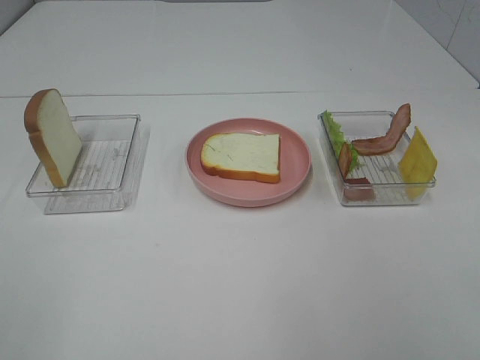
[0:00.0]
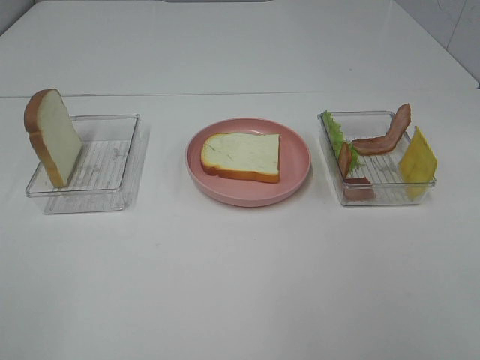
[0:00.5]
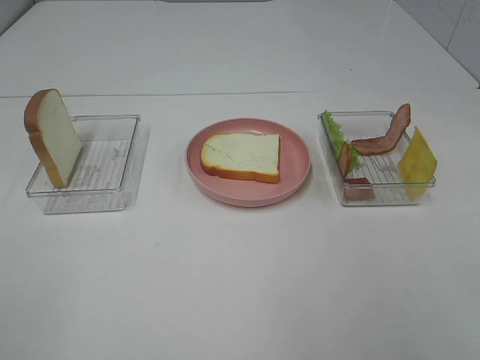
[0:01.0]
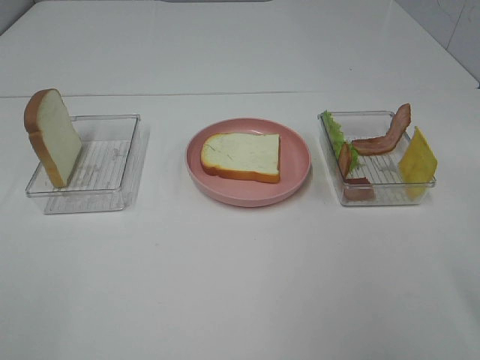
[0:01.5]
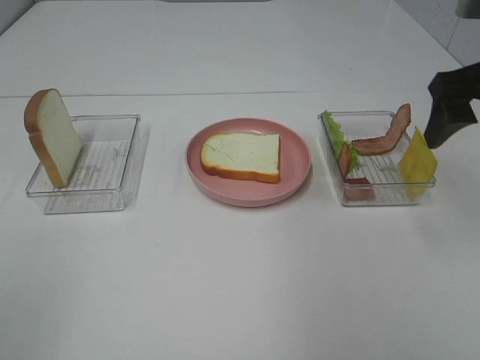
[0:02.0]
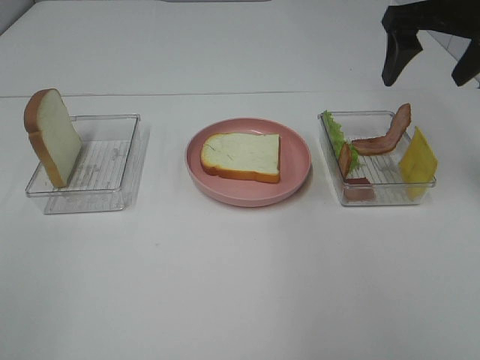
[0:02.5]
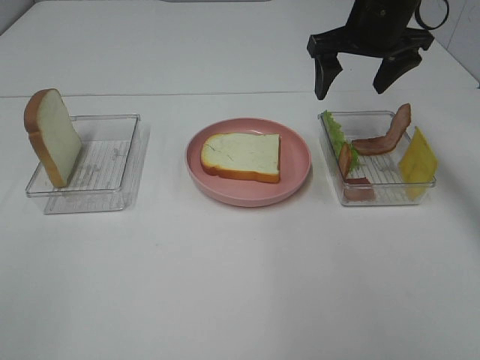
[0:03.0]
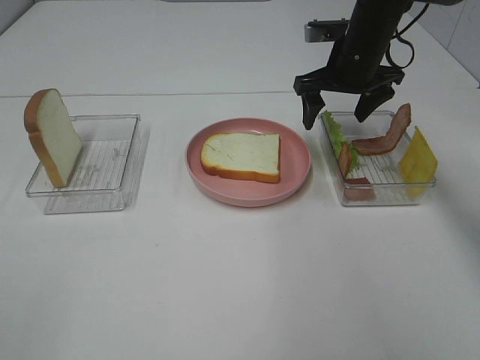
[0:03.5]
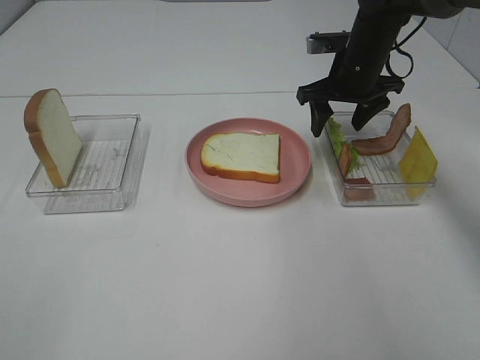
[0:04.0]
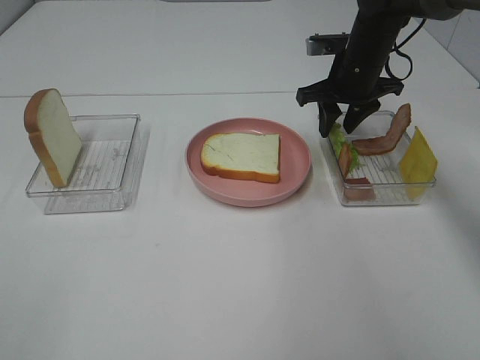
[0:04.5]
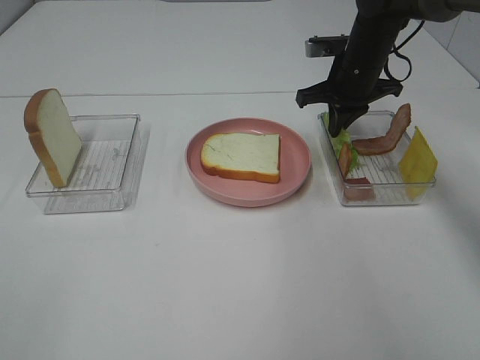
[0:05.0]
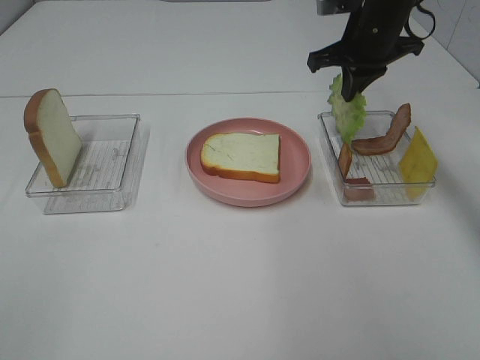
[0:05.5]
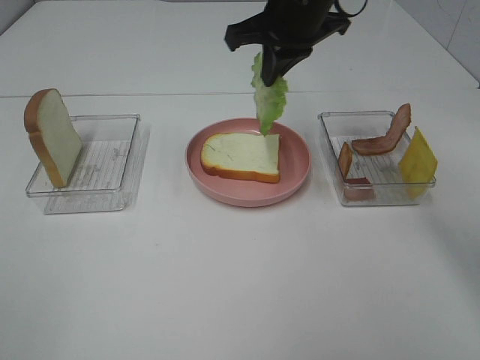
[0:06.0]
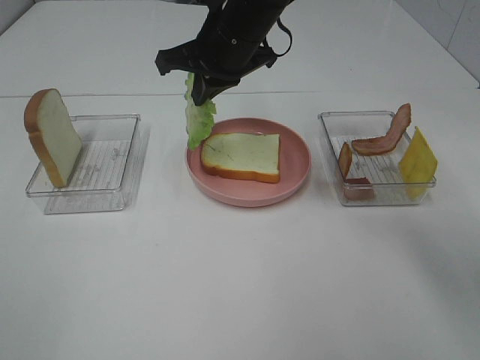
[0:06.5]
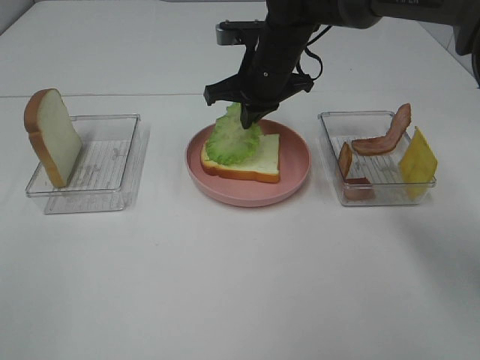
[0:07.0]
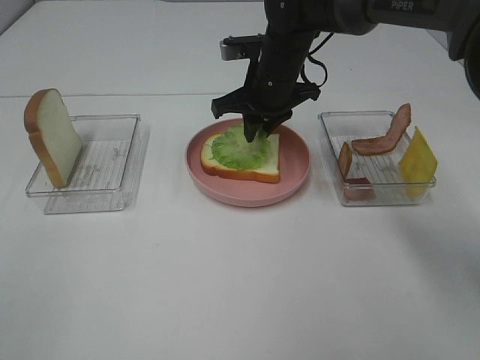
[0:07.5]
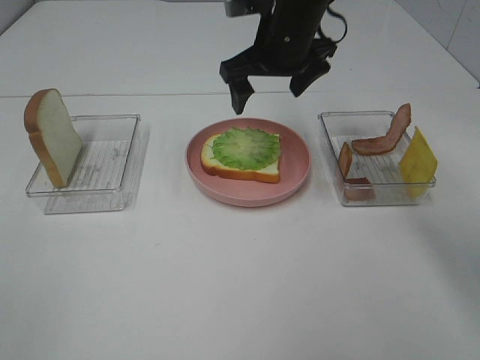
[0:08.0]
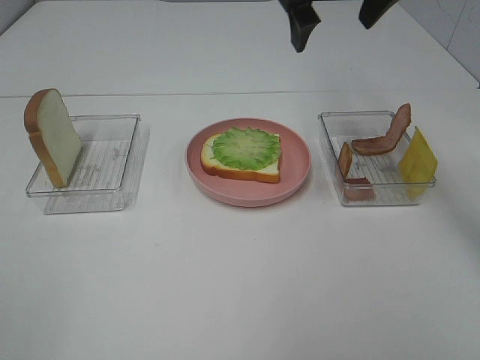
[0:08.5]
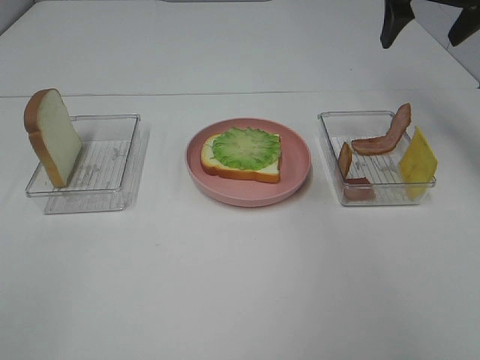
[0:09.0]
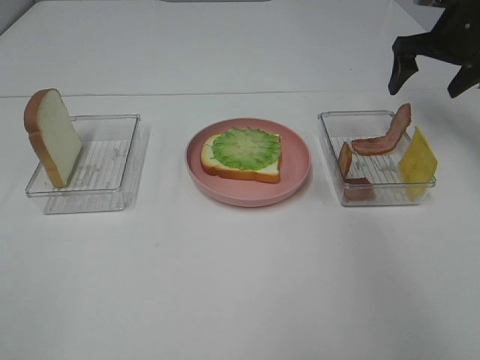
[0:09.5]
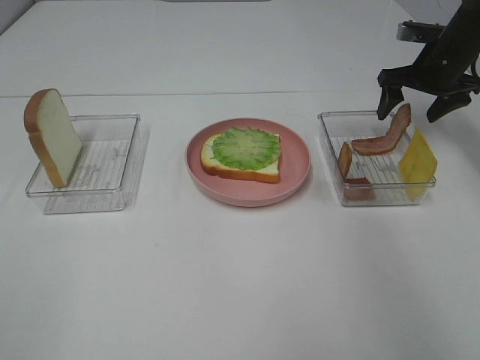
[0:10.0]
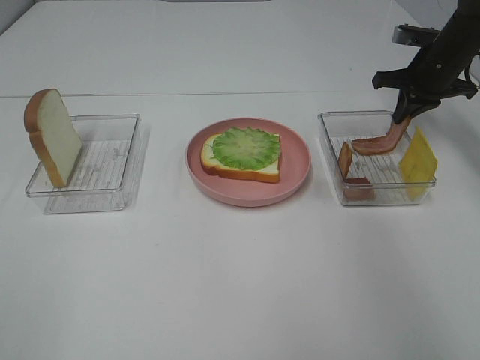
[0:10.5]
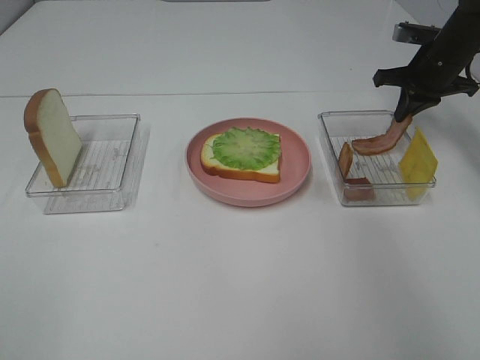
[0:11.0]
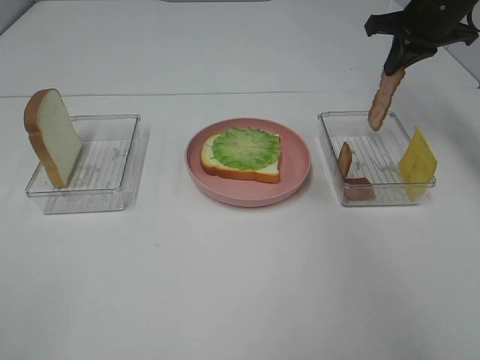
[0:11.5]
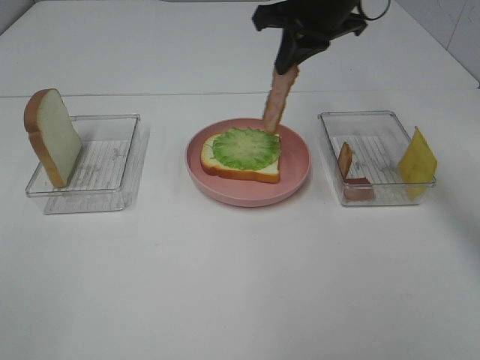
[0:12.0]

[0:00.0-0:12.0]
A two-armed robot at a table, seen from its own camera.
Task of the whole recording: Make sandwiches.
Step, 0:00.0 to 0:05.0: Right hand:grab the lettuce slice.
Step, 0:08.5 to 0:11.0: Right hand:grab the bacon.
0:00.0 to 0:02.0: The right gripper shifts roughly 30 cm forward.
0:02.0 to 0:04.0: The right gripper moves forward, downward and to the left, roughly 25 cm.
0:04.0 to 0:06.0: The right gripper is displaced to the left, upward and backward by about 15 cm, and closes up.
0:06.0 to 0:08.0: The right gripper travels downward and back again, some 10 cm each way, and opens its fingers.
0:08.0 to 0:10.0: The right gripper goes about 25 cm to the right.
0:10.0 to 0:12.0: The right gripper is displaced to the left and upward by some 25 cm, and closes up.

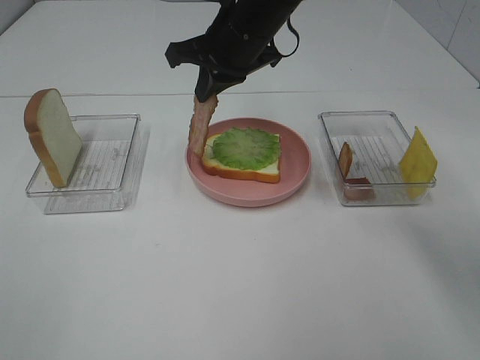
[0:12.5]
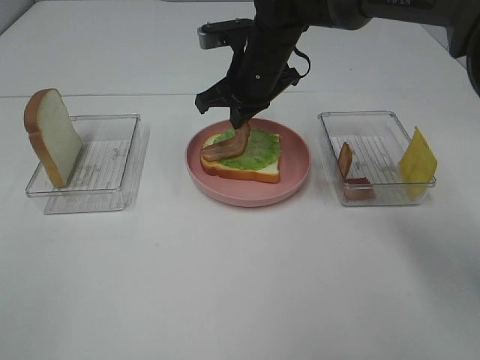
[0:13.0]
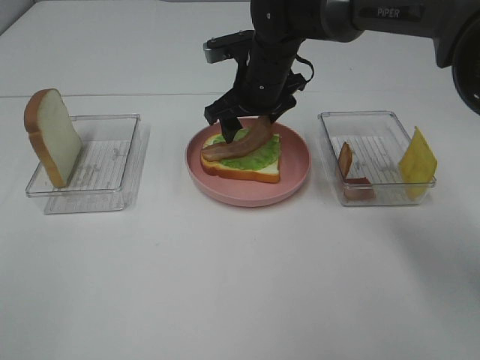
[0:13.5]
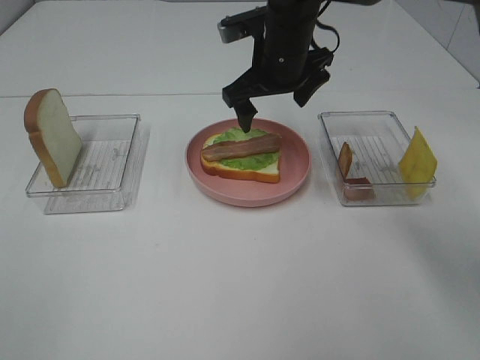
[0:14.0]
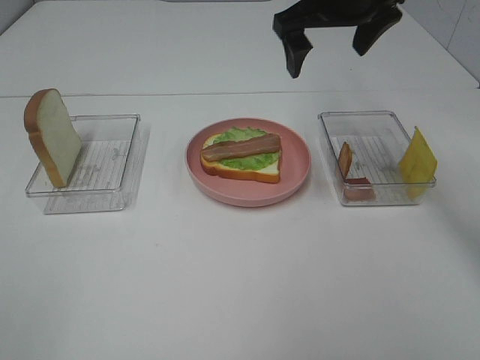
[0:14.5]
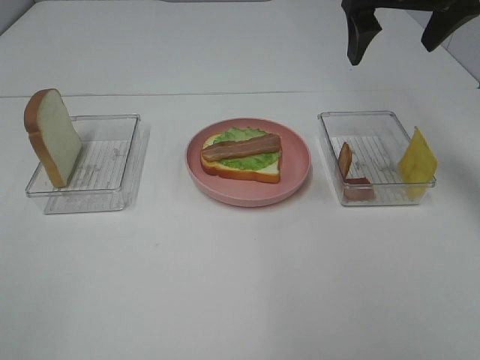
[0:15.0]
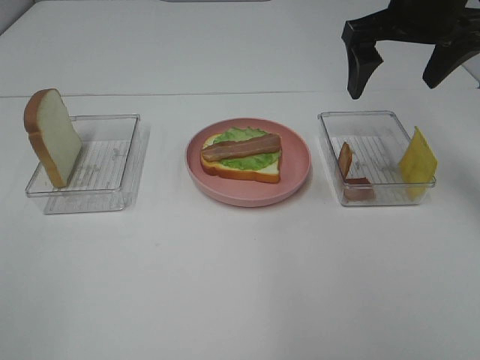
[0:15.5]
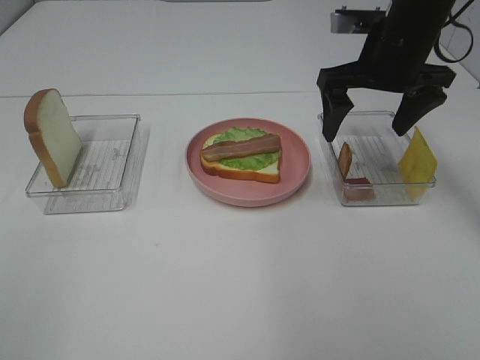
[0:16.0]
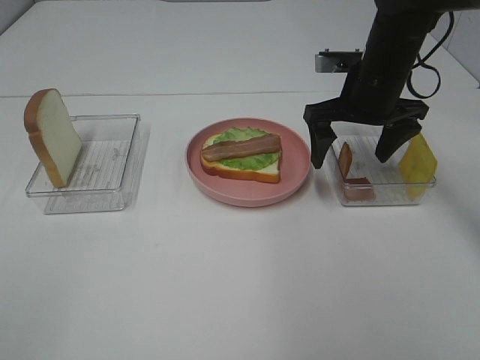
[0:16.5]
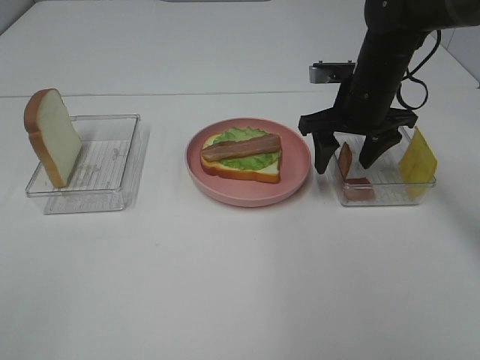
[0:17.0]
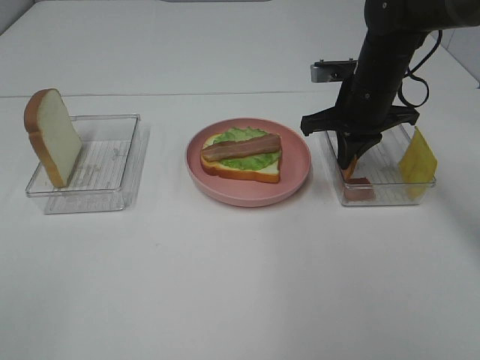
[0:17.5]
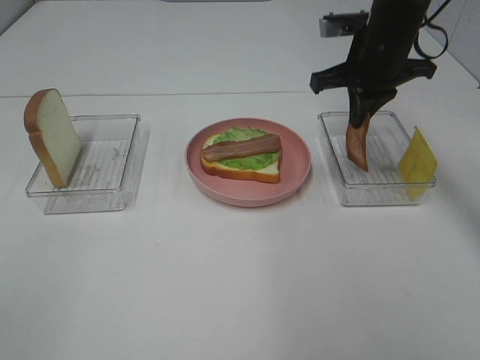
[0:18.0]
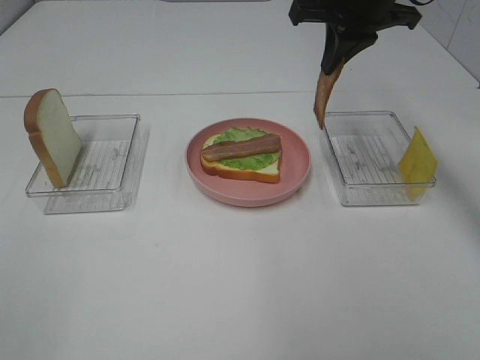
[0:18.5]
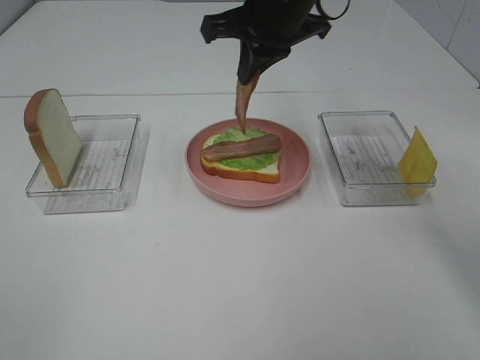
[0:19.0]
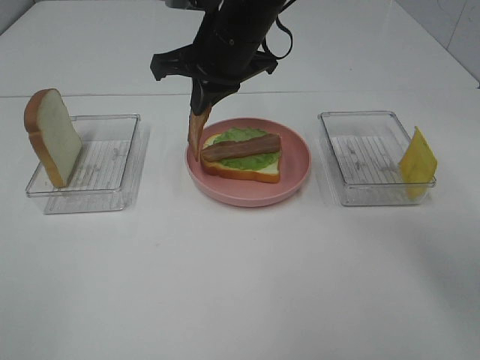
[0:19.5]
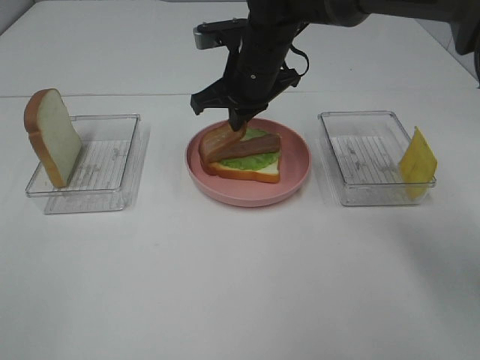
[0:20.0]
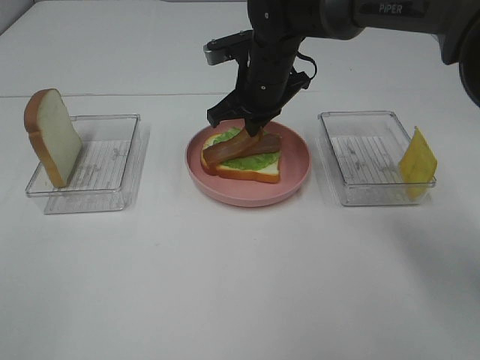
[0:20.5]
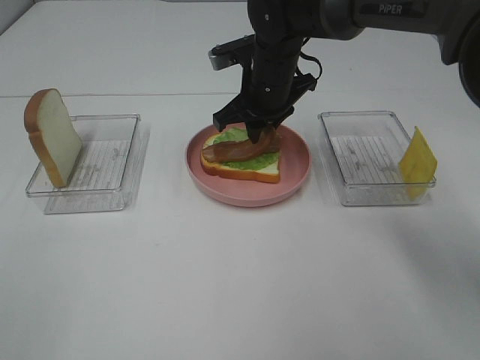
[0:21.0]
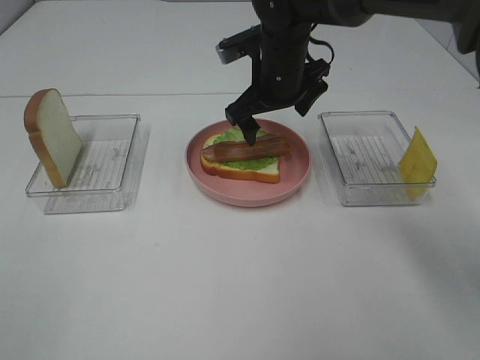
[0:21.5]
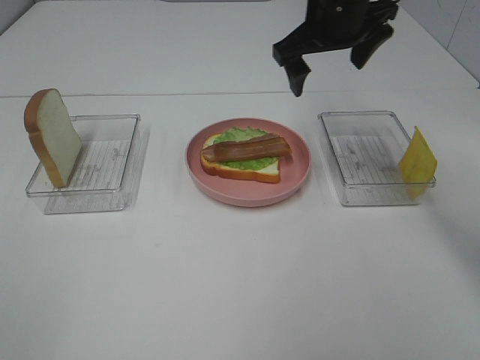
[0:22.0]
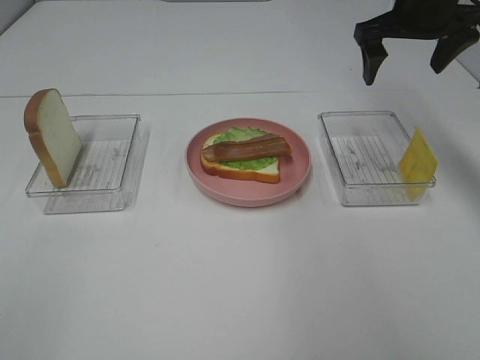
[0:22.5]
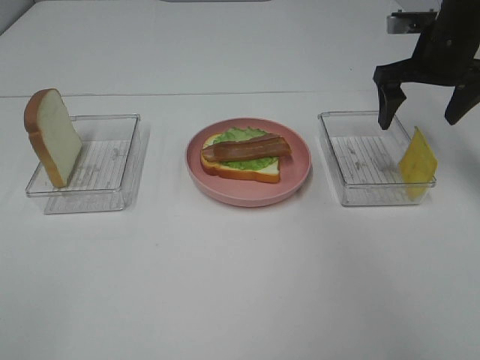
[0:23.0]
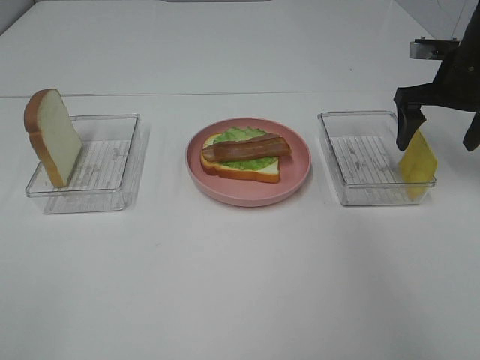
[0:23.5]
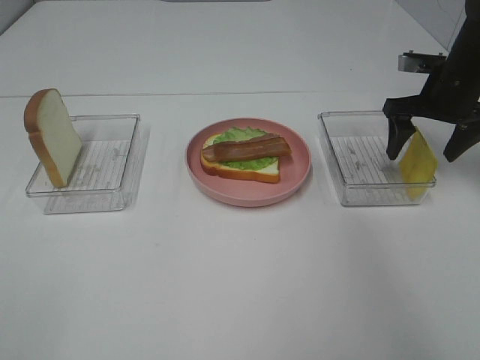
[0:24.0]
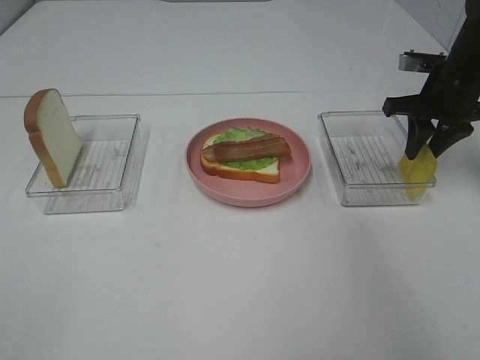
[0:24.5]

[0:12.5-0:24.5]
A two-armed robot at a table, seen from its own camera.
Task of the whole recording: Make sandwiches.
Step, 0:12.5 to 0:14.0: Right hand:place bacon on lettuce slice.
Step, 0:14.5 to 0:17.5: Right hand:grab the bacon.
Step, 0:18.0 to 0:21.0: Right hand:place bacon on bacon.
0:12.5 to 0:14.5: The right gripper goes some 15 cm to the right and upward, and opens up.
0:14.5 to 0:16.5: The right gripper goes approximately 15 cm downward and to the right.
0:16.5 to 0:18.5: The right gripper moves upward, approximately 10 cm, and closes.
0:18.5 to 0:20.5: The right gripper goes about 15 cm downward and to the left.
0:20.5 to 0:22.5: The right gripper is displaced to the right and upward by some 20 cm, and opens its fingers.
0:22.5 to 0:24.5: The right gripper goes about 10 cm downward and to the right, and closes its fingers.

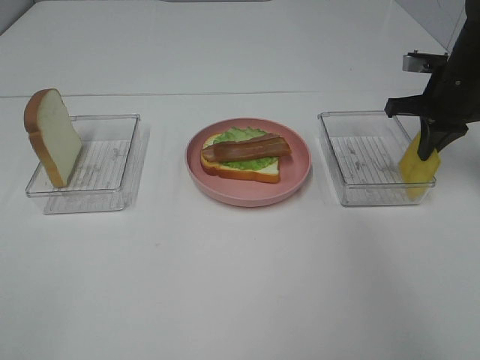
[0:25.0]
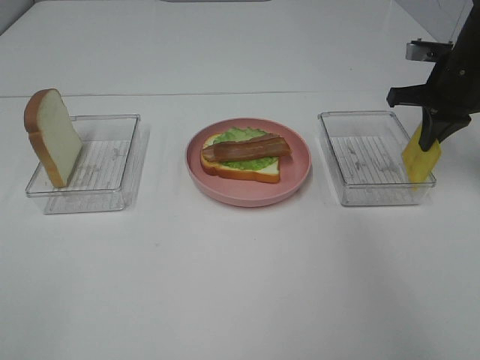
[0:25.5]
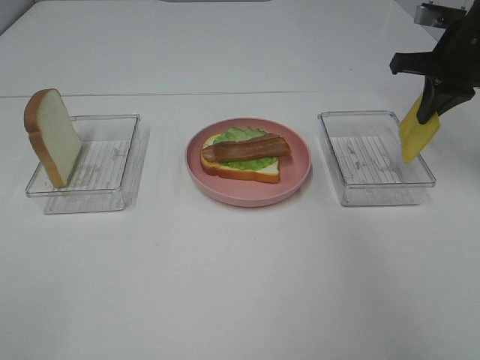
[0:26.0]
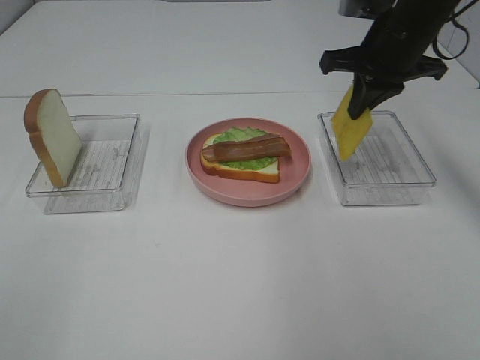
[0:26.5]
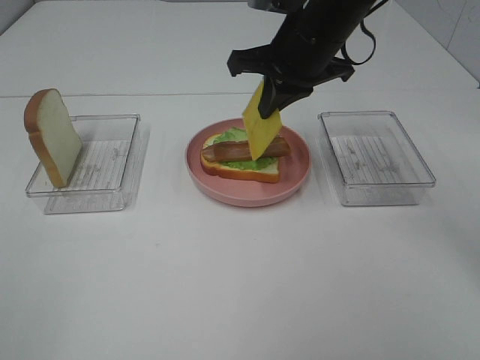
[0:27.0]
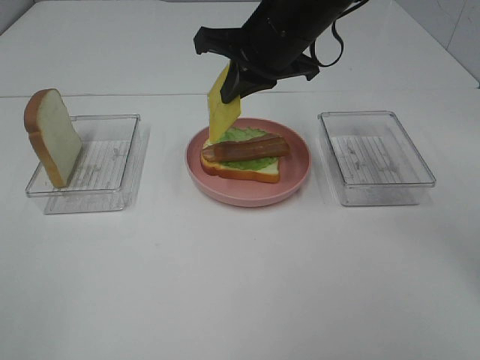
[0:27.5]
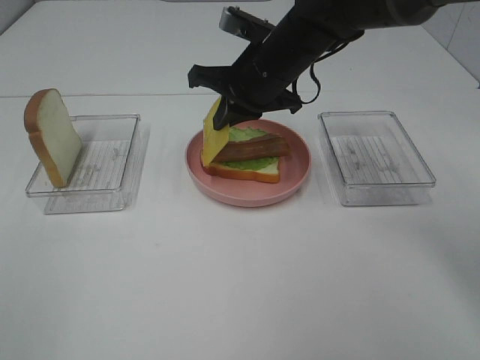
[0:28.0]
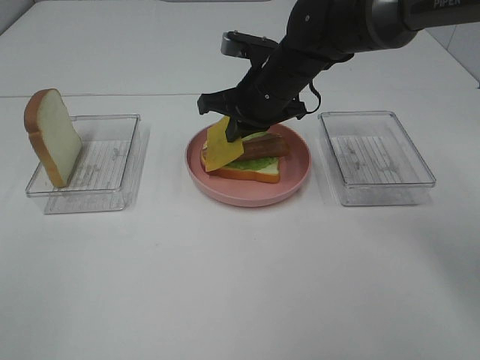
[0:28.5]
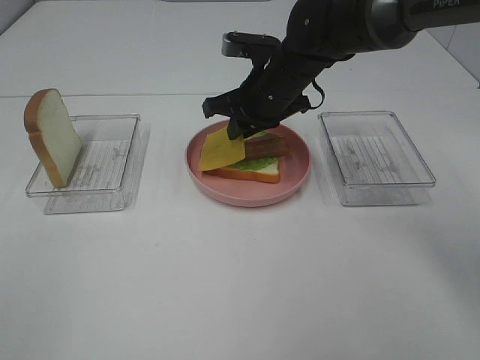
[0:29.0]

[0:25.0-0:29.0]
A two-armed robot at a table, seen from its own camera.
Task of the whole recording: Make sandwiches.
0:25.0 to 0:27.0: The right gripper shifts some 20 cm to the left.
0:27.0 to 0:29.0: The right gripper goes about 10 cm downward.
